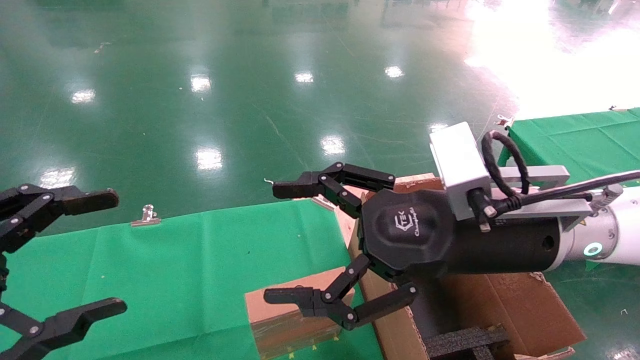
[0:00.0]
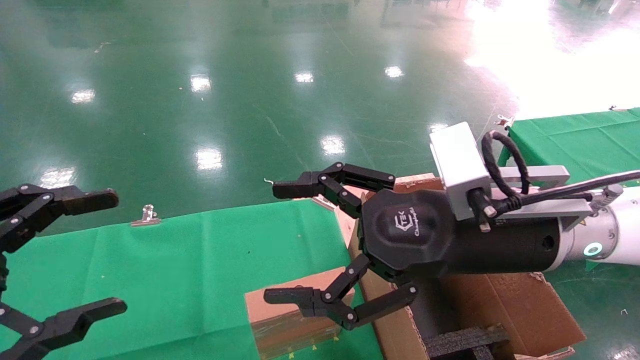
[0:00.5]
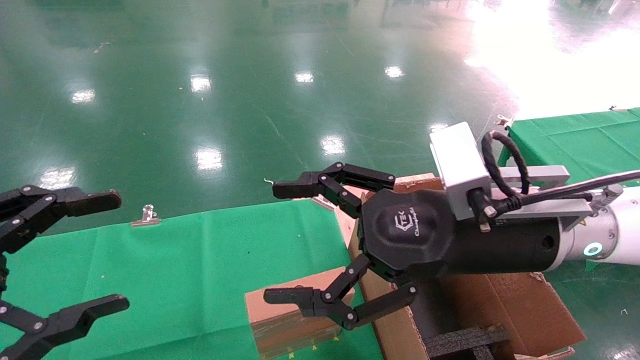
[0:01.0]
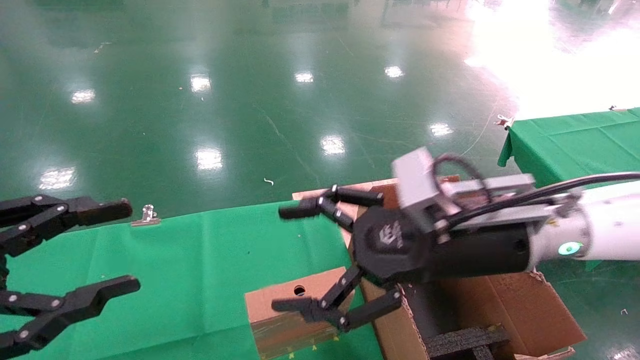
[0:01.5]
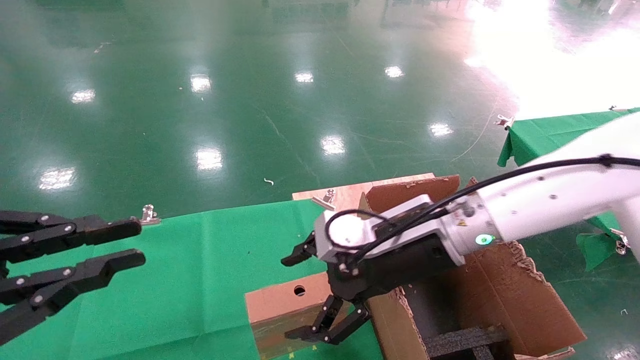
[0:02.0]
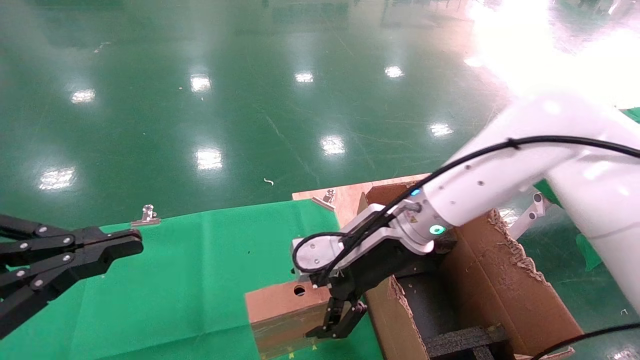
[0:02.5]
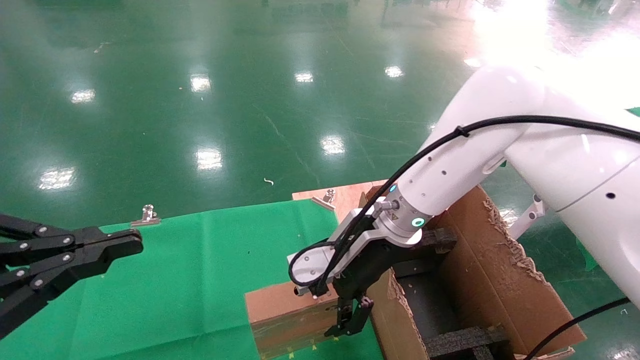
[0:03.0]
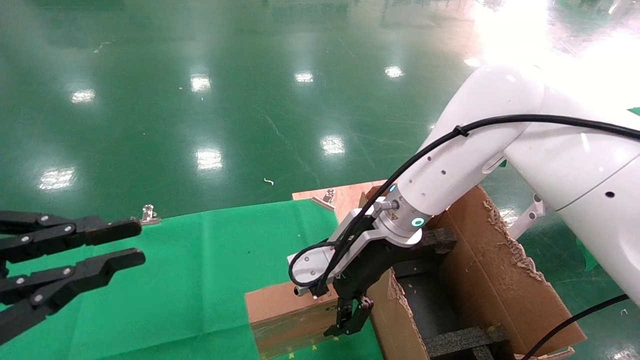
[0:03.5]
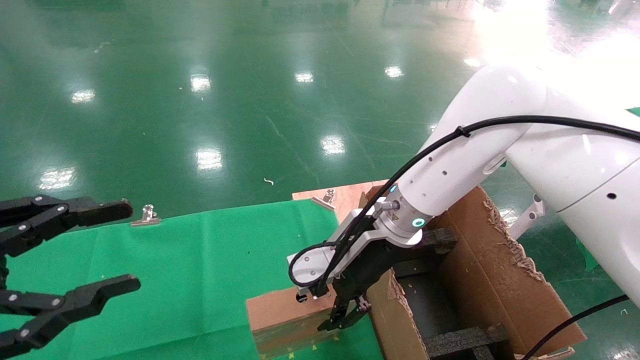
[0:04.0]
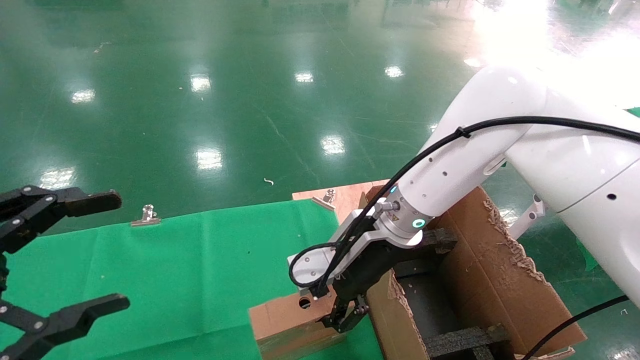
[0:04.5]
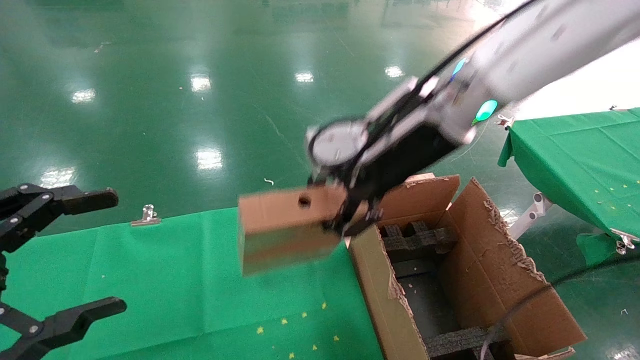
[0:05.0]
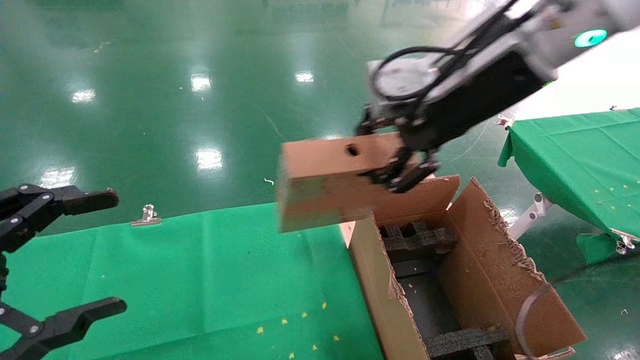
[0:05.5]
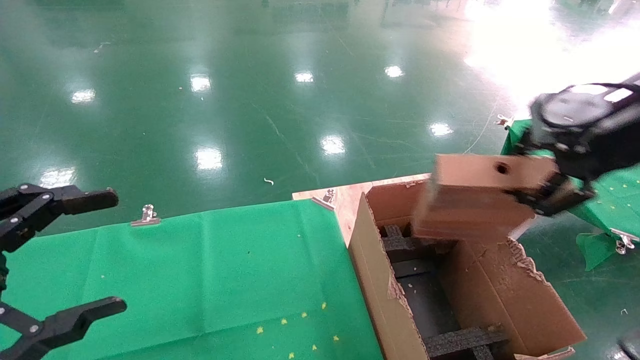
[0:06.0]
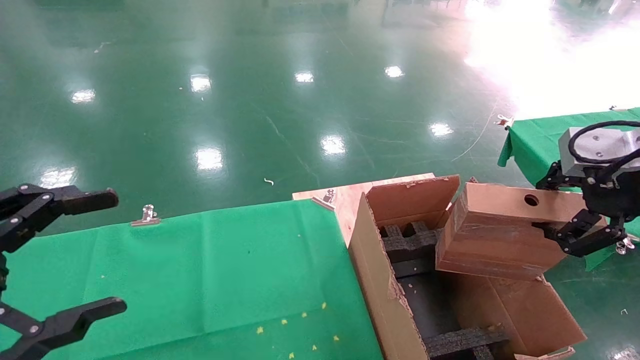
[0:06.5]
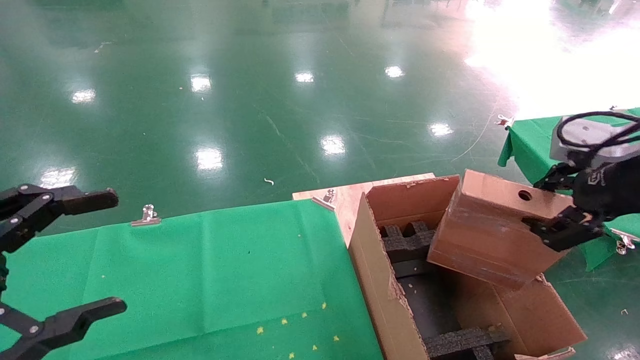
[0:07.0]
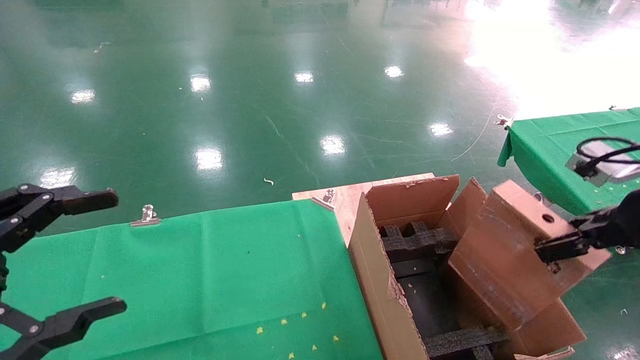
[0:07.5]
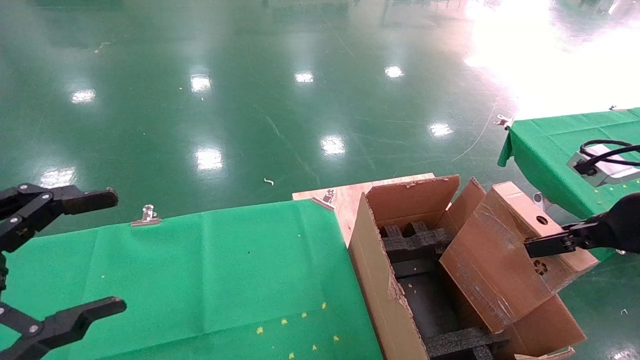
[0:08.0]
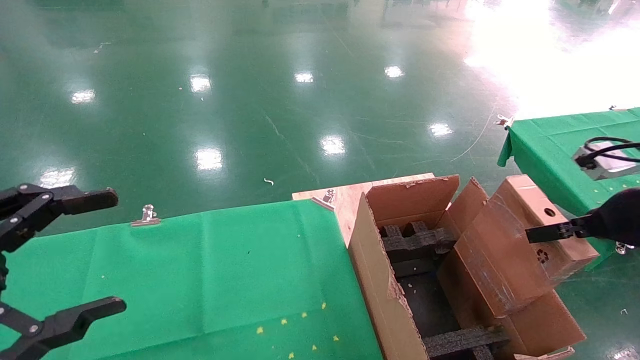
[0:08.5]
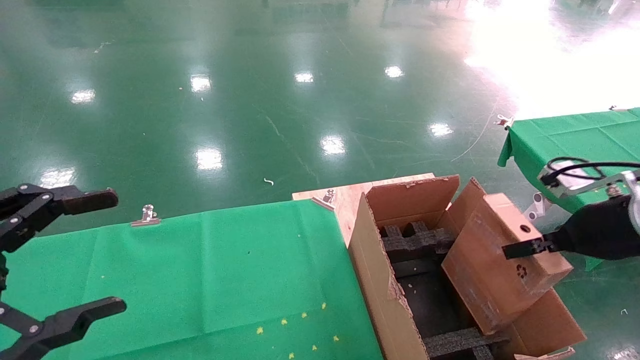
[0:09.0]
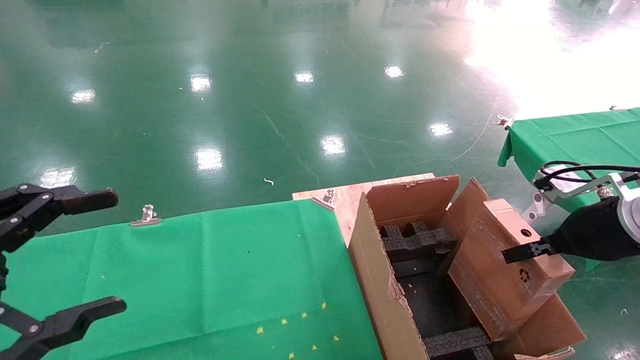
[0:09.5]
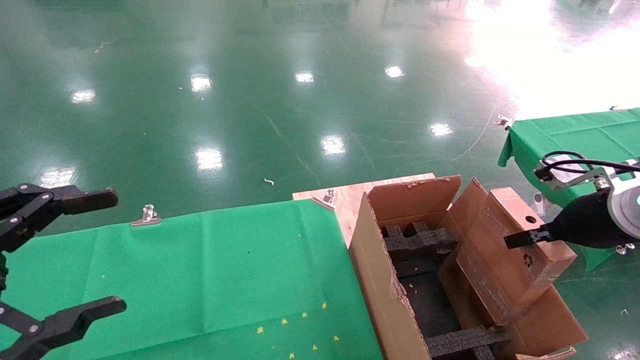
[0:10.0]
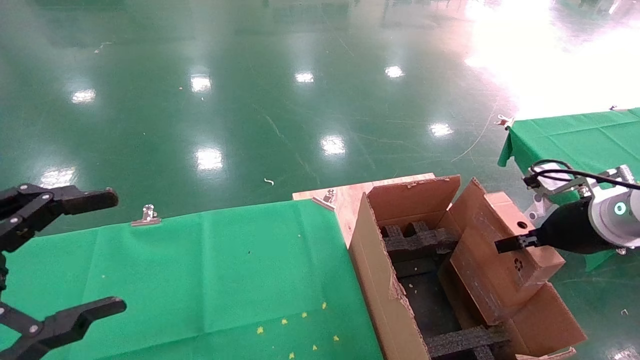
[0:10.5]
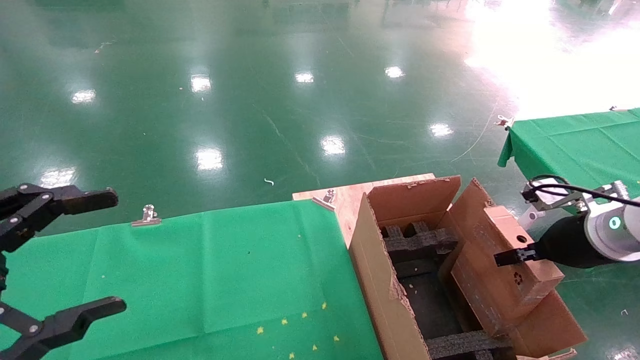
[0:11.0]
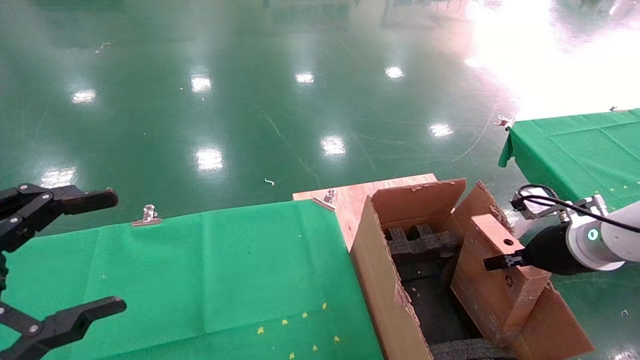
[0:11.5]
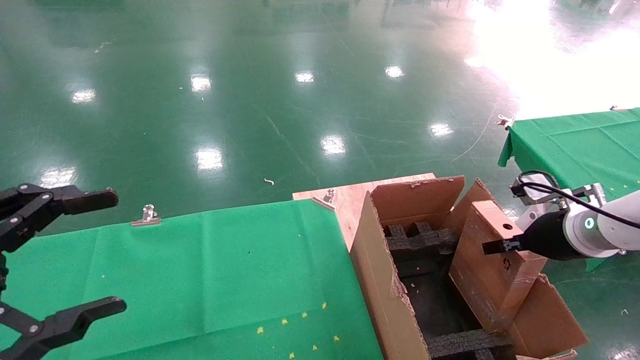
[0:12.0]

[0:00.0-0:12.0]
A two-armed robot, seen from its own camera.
Task of the whole recording: using a robotic arm to pick up a cardboard box and palace it the carton.
Step, 0:02.0 to 0:04.0: Pick up the mouse and the power cord paper box.
0:00.0 to 0:02.0: The right gripper heads forward, covering some 10 cm, while the left gripper closes its fingers.
0:02.0 to 0:04.0: The right gripper shifts by roughly 5 cm.
0:04.0 to 0:06.0: The left gripper opens its fingers. Meanwhile the right gripper moves to the right, upward and backward, some 30 cm, and closes its fingers.
0:06.0 to 0:08.0: The right gripper moves downward and to the right, approximately 15 cm.
0:08.0 to 0:10.0: The right gripper shifts approximately 5 cm forward.
0:10.0 to 0:12.0: The right gripper changes place by about 5 cm.

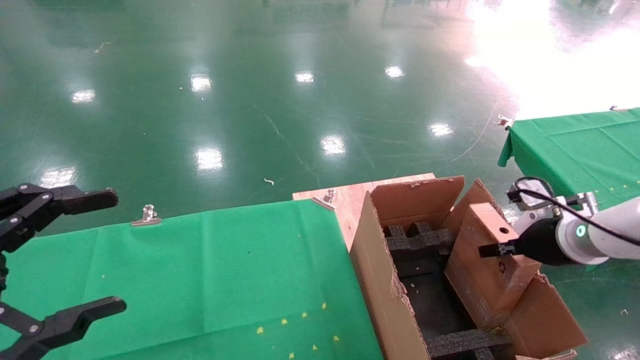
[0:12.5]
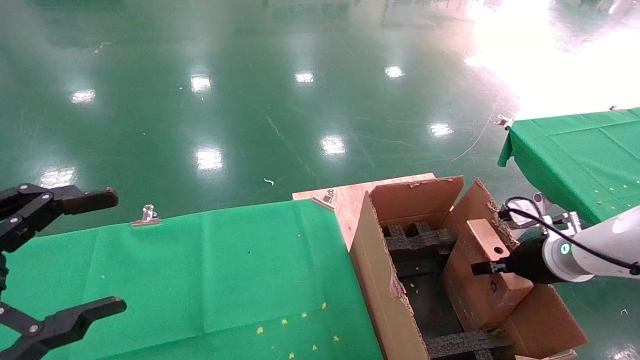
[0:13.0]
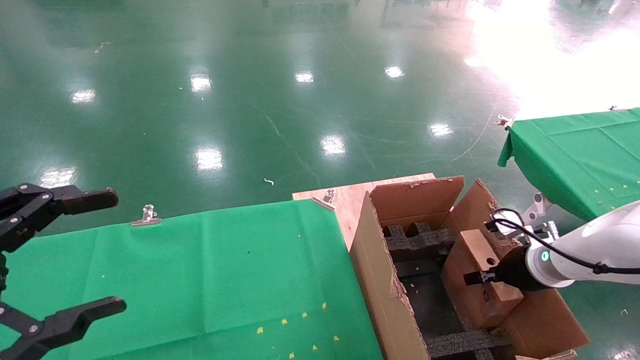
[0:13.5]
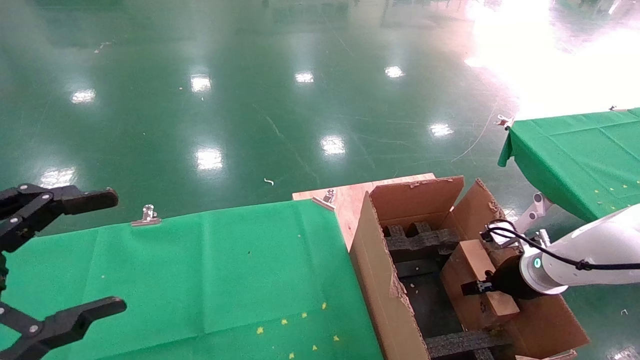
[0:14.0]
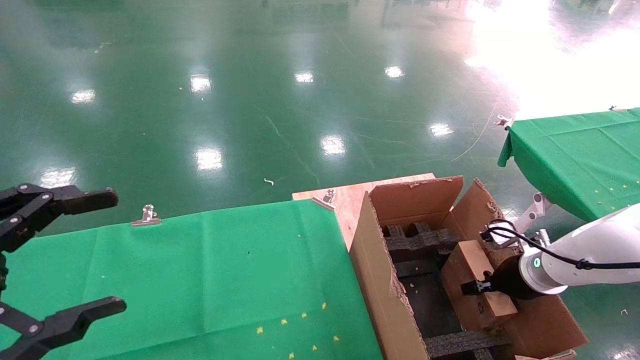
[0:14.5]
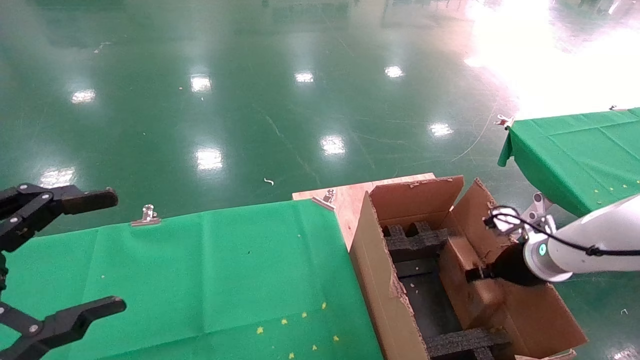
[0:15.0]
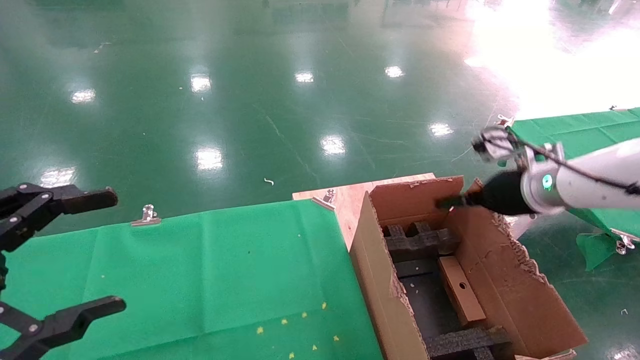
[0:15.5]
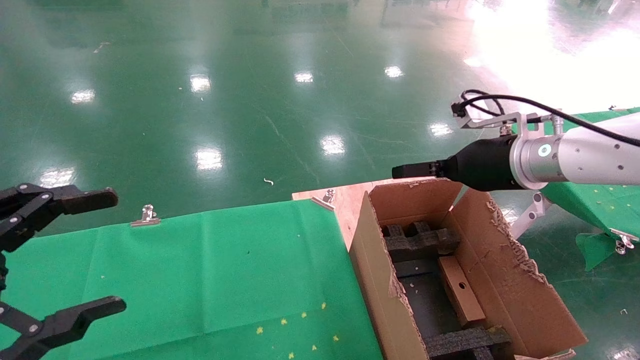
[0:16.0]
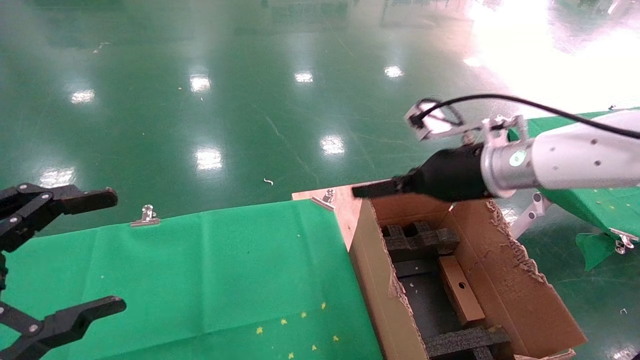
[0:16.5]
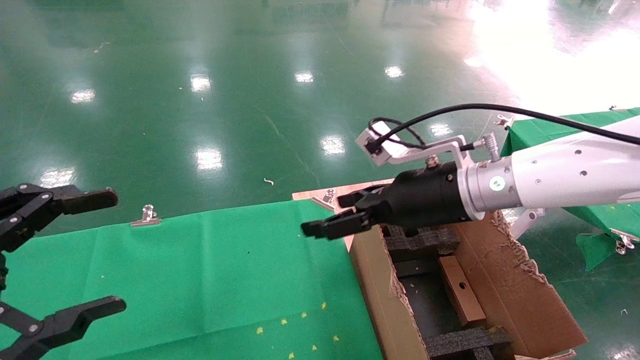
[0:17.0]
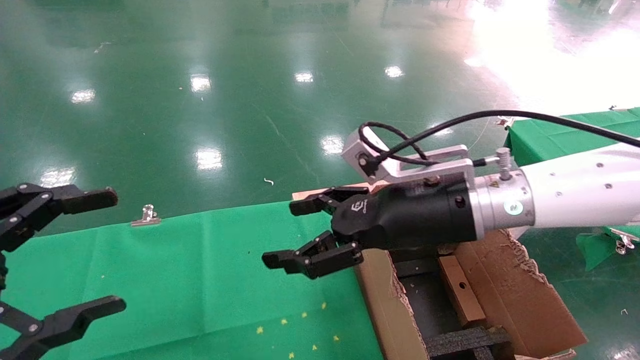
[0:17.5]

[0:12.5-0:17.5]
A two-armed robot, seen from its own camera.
Task of the whole recording: using a robotic arm to pick up a cardboard box and palace it the carton.
Step, 0:12.5 to 0:15.0: Place the mouse and the power cord paper box into the container.
0:12.5 to 0:15.0: The right gripper changes place by some 5 cm, and opens.
0:15.0 to 0:17.5: The right gripper goes some 25 cm to the left and upward, and opens its fingers.
